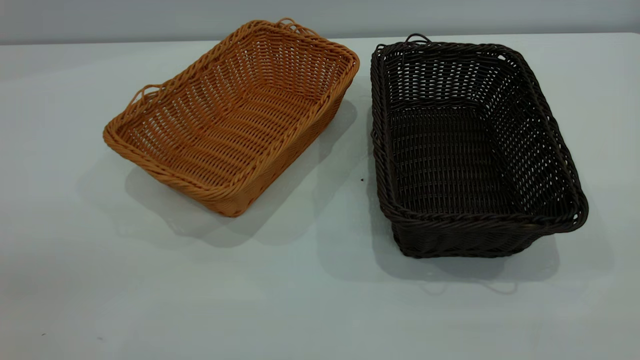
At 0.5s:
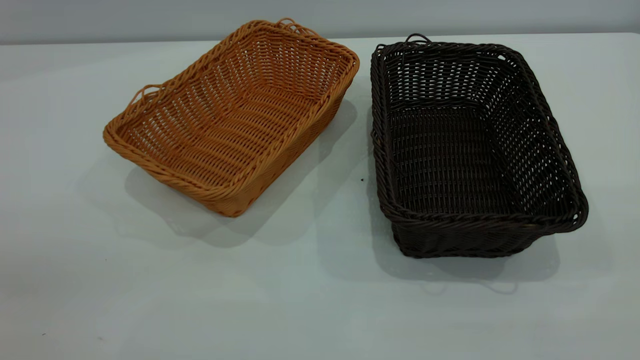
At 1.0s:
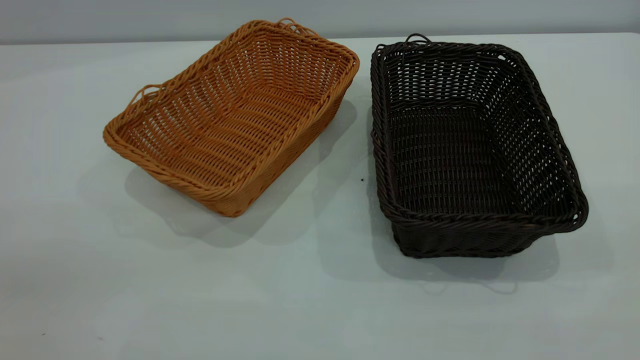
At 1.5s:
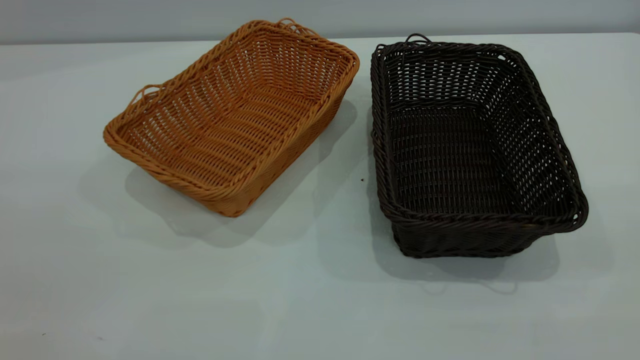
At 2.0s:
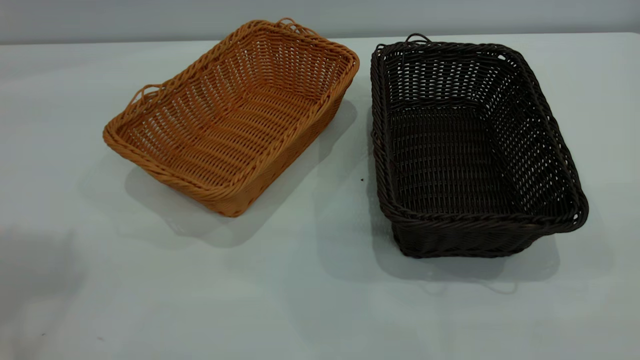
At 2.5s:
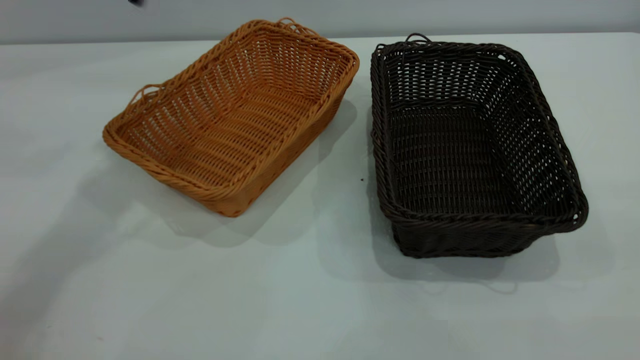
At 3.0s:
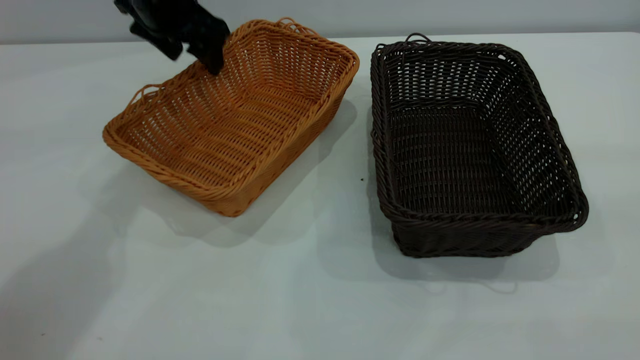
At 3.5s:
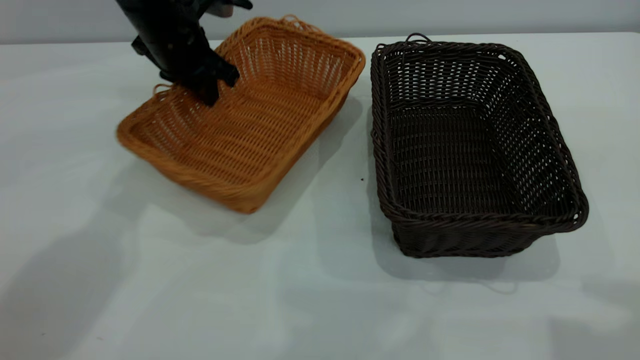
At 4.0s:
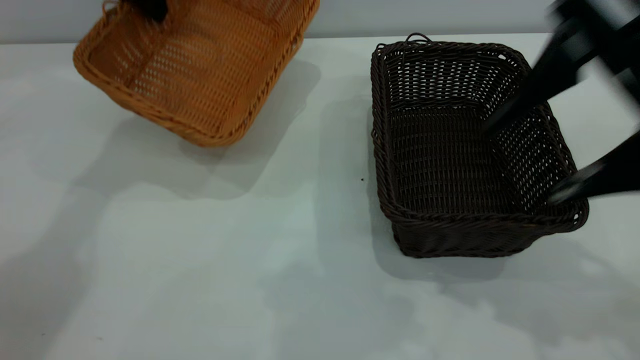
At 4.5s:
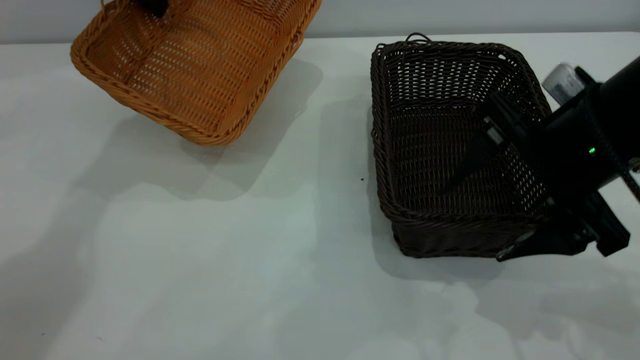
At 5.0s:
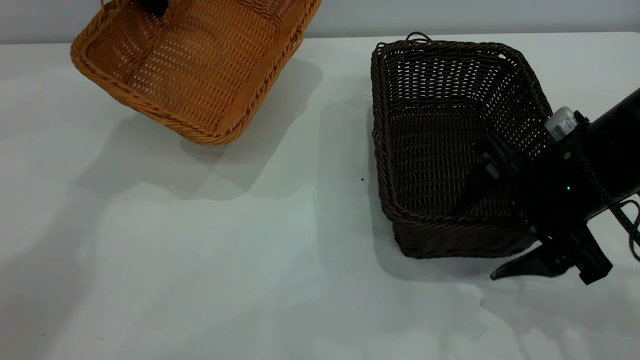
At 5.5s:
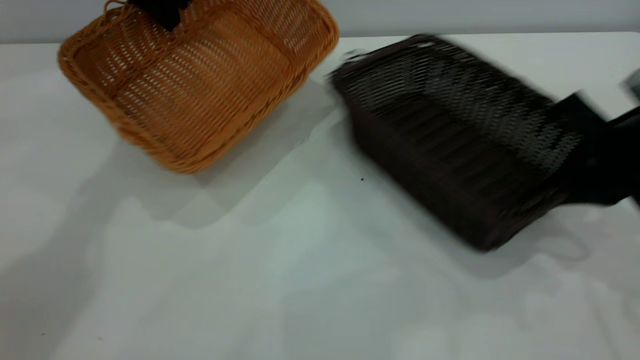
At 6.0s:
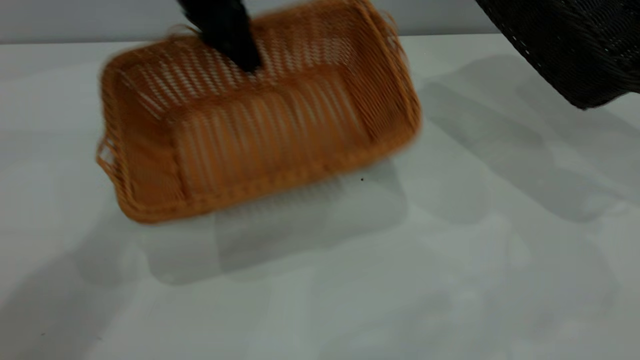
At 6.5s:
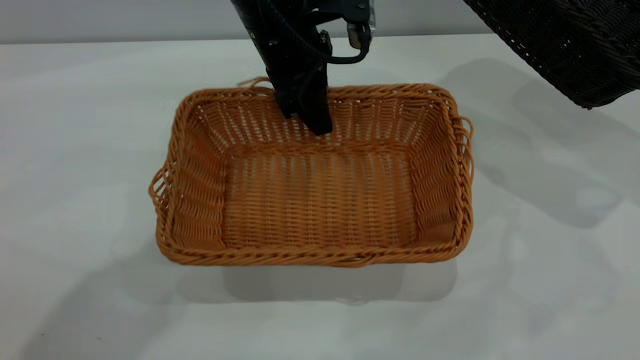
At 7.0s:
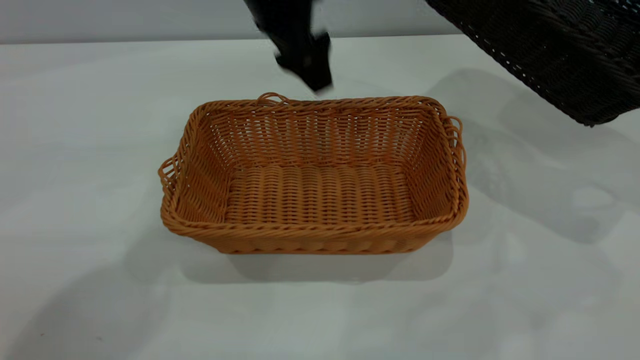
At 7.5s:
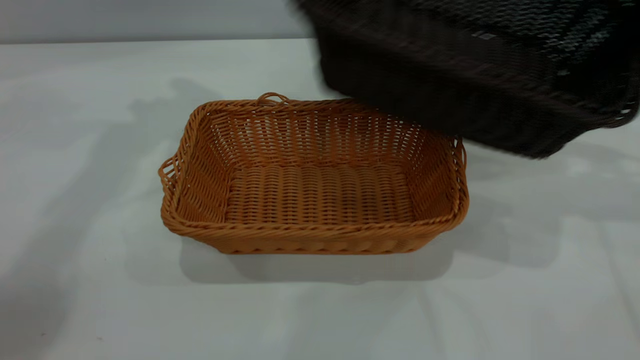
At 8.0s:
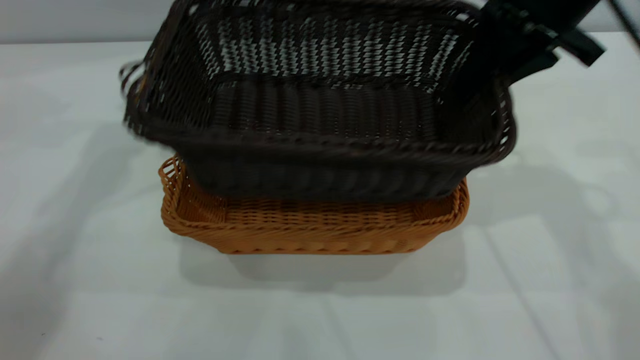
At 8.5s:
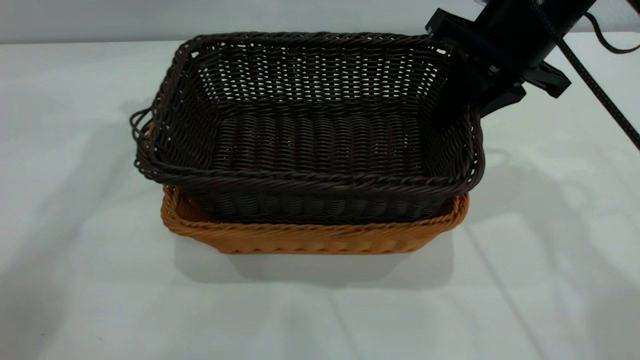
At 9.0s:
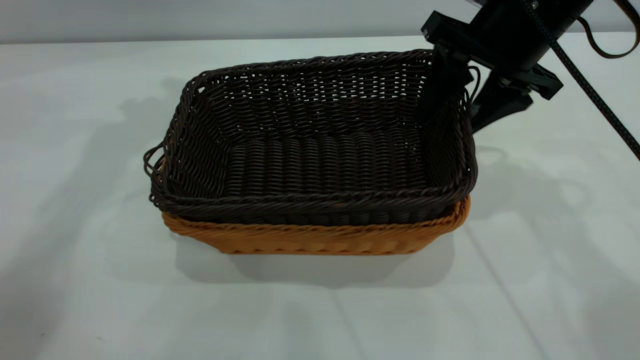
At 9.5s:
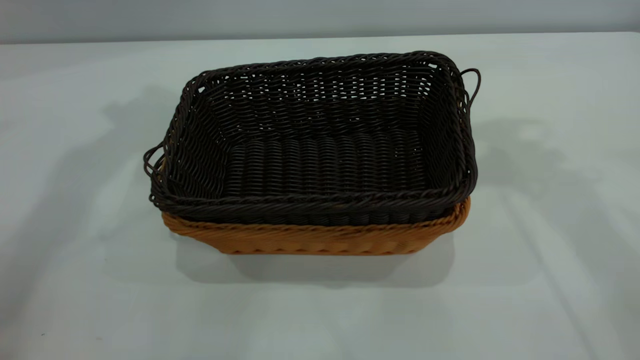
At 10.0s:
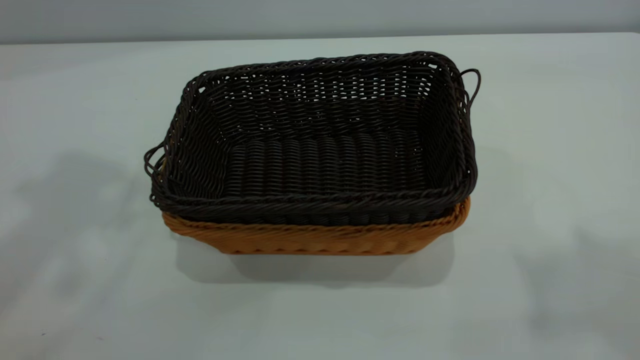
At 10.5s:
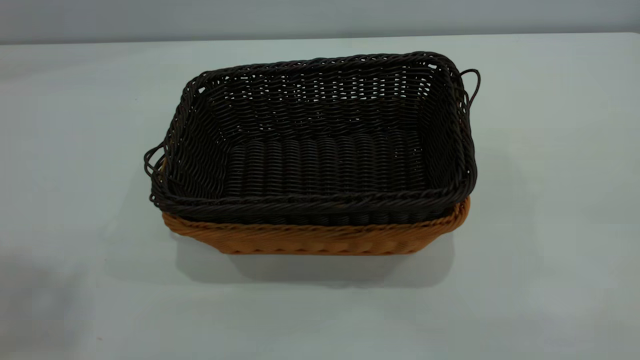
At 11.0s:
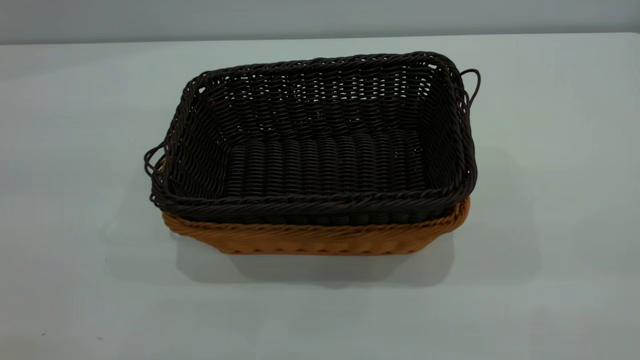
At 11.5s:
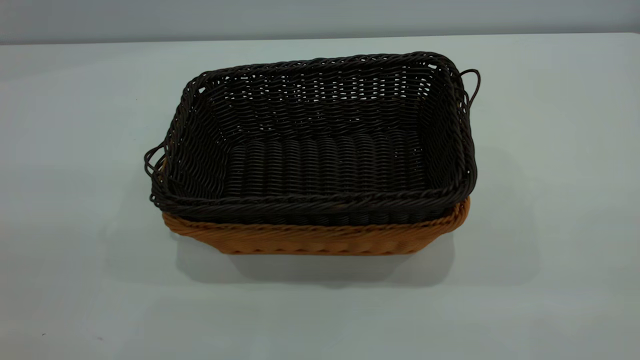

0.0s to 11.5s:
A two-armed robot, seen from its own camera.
Task of the whole recording: the left gripper grasp the brown basket and place it in the center of the table, the right gripper grasp the black basket and place it inside the brown one.
Step, 0.0s to 5.5s: Pick up the light basket with the right gripper.
Step, 6.0s to 7.0s: Place the light-colored basket in the center.
Step, 7.5s to 9.0s: Place the dark basket on top of the light basket.
2.0s to 4.0s: The two grippers go roughly 30 cm forward and downward. The left gripper closes its fingers.
4.0s to 6.0s: The left gripper goes roughly 10 cm to the right and backward. Meanwhile the right gripper travels to the right and forward by about 20 cm, and closes up.
6.0s to 7.5s: The left gripper travels to the left and upward by some 15 cm, and opens its fingers. The right gripper heads to the left, covering about 10 cm.
7.5s to 9.5s: The right gripper goes roughly 15 cm upward and to the left, and opens. Meanwhile the left gripper is displaced upward by roughly 15 cm.
9.5s to 11.5s: The left gripper travels backward by approximately 40 cm.
